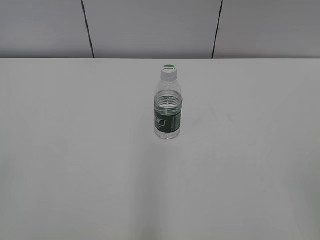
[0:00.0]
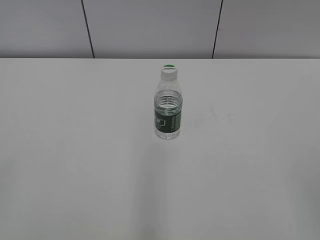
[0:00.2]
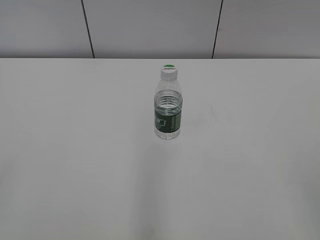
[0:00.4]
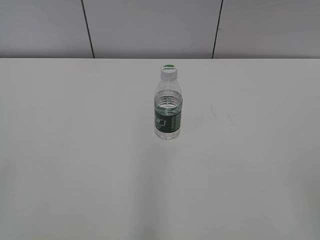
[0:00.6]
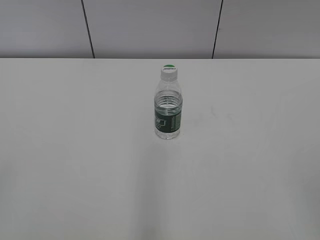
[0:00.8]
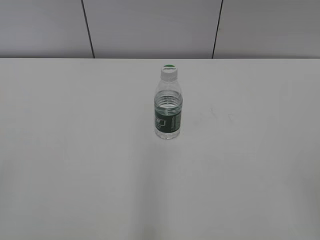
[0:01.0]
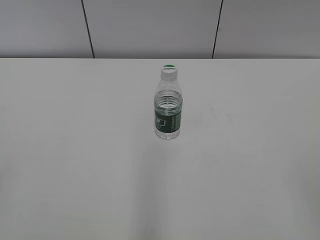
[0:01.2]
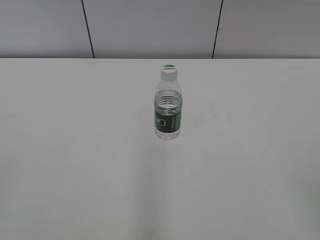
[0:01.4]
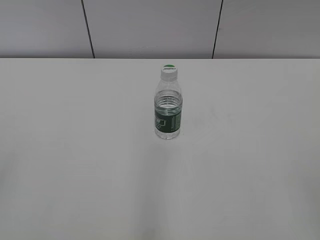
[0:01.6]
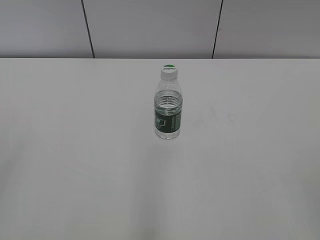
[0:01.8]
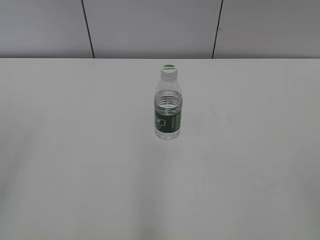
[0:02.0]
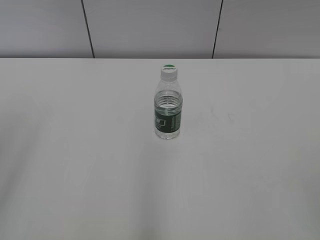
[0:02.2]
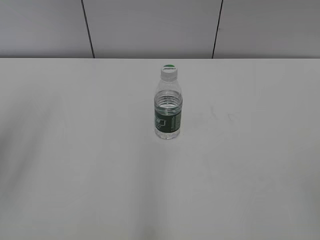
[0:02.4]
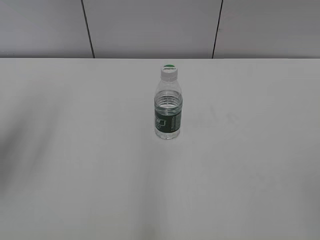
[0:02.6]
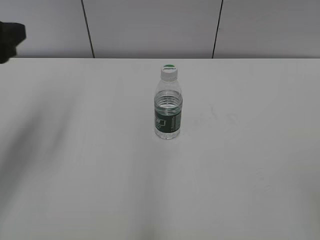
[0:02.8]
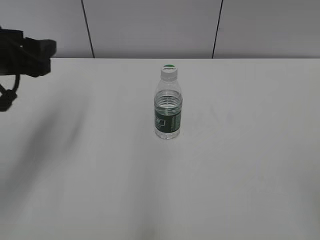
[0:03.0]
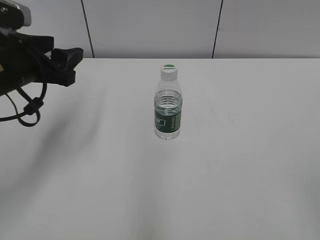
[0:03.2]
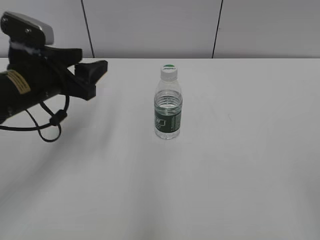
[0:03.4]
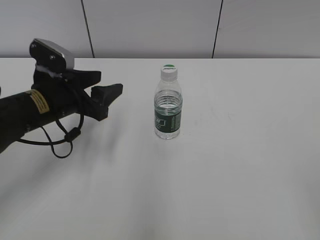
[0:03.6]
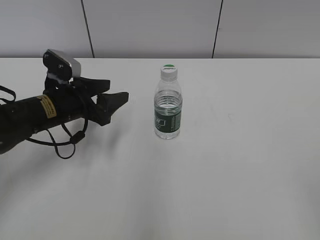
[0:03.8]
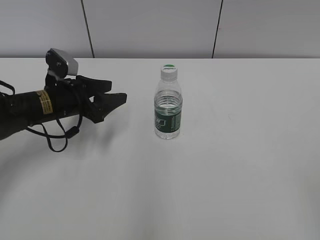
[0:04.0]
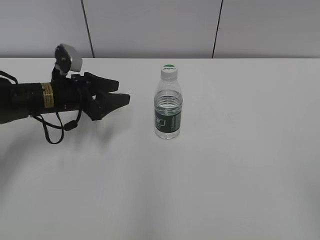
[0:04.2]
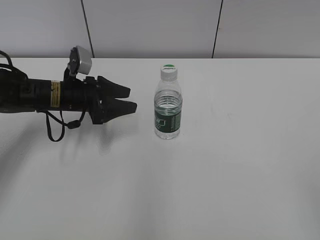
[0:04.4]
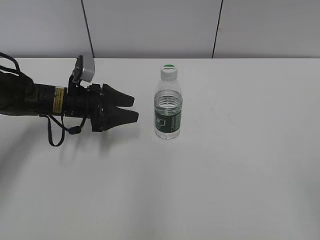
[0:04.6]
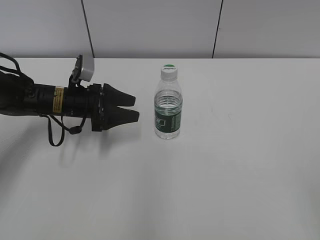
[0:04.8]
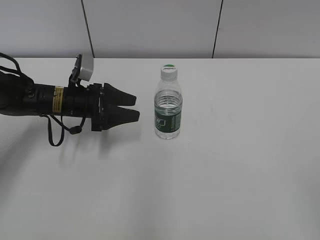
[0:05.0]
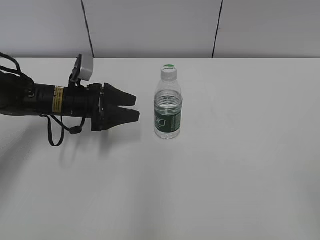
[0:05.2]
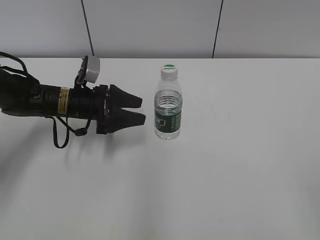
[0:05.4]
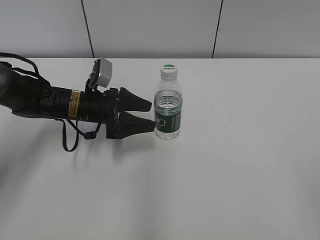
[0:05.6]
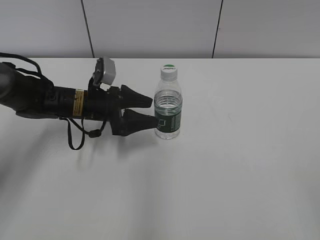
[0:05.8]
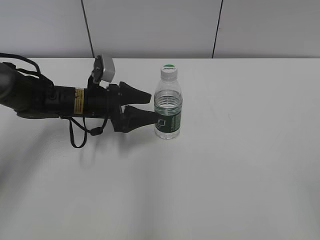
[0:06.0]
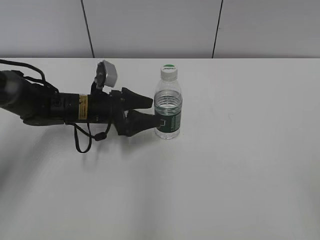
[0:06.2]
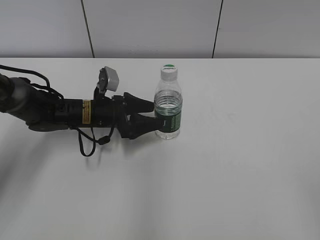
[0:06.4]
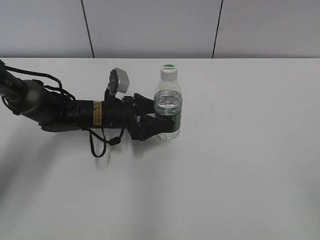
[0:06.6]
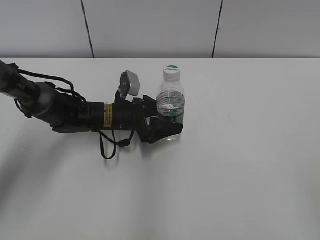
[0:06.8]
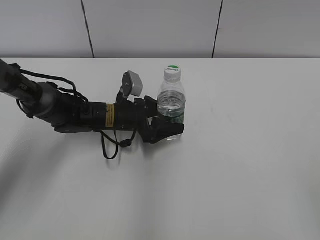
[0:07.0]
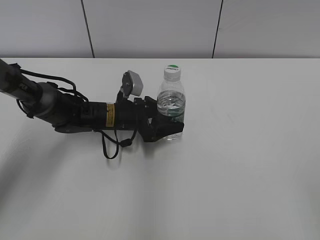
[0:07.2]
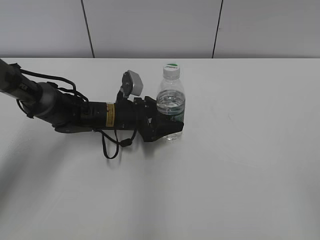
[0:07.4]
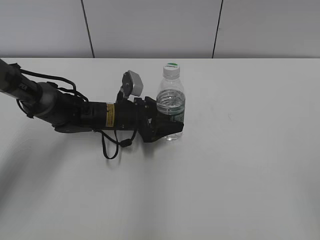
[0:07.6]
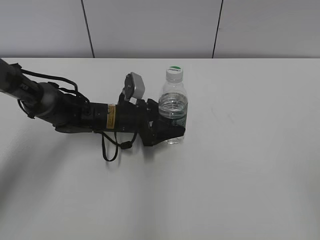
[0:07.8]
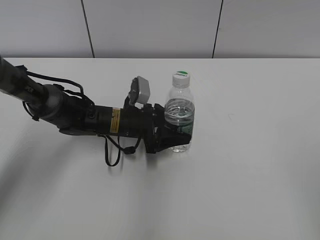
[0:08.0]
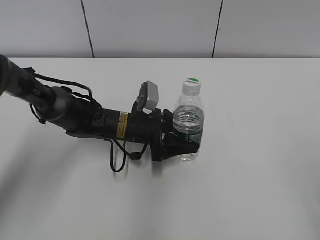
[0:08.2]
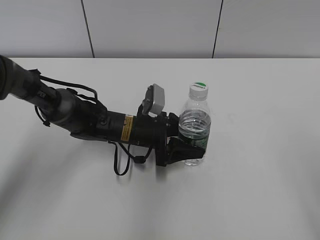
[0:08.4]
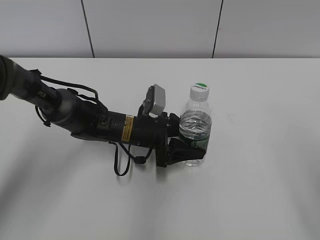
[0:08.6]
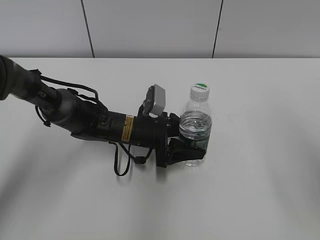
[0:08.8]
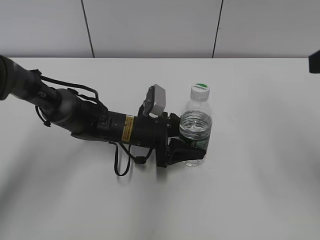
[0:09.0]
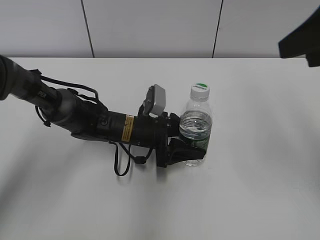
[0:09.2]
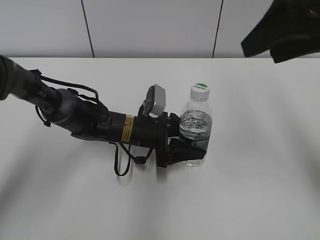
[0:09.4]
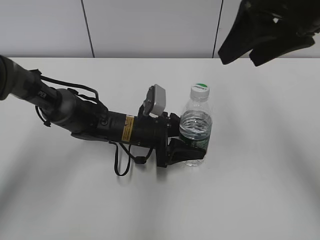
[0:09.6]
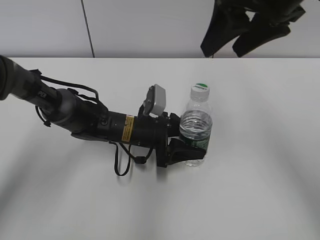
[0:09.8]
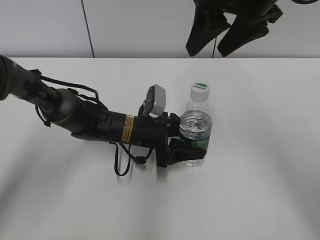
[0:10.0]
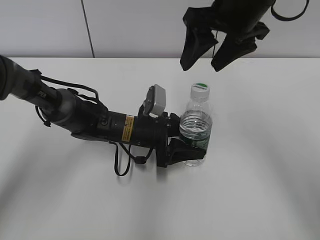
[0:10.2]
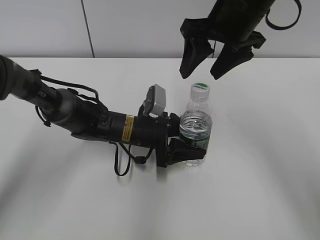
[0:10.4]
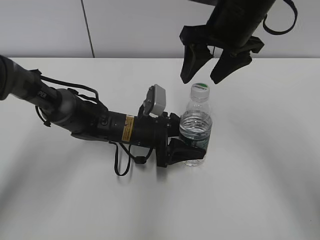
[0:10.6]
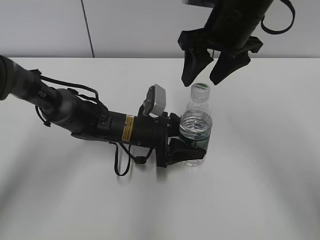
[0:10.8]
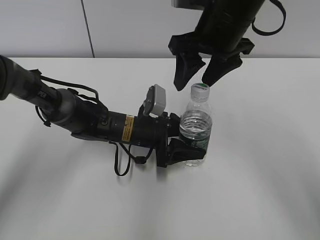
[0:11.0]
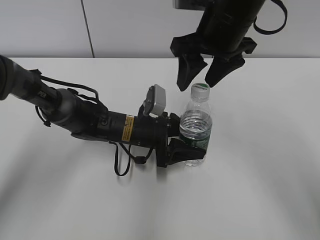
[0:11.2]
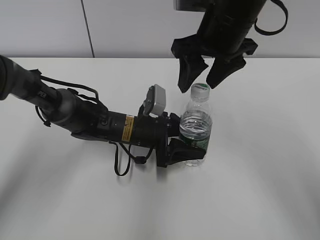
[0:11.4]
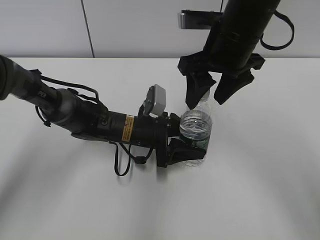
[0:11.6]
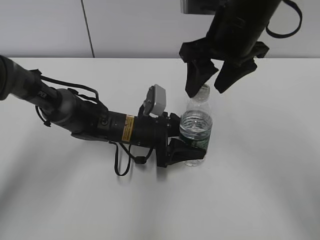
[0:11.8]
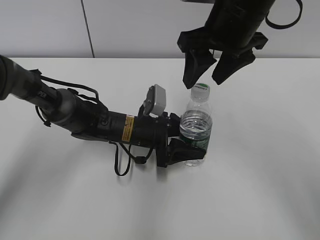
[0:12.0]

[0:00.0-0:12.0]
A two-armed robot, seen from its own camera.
Step, 0:00.0 to 0:06.6: Grab the C'estbon with the left hand.
Step, 0:06.8 to 0:08.8: Move the C'estbon to the right with the left hand.
0:01.6 to 0:03.0: The left gripper moves forward, some 25 cm.
0:03.0 to 0:04.4: The left gripper travels downward and forward by roughly 20 cm.
0:04.4 to 0:06.0: The left gripper opens up.
0:06.0 to 0:07.6: The left gripper shifts about 5 cm to the right, and closes up.
0:07.6 to 0:09.0: The left gripper shifts by roughly 5 cm. Meanwhile the right gripper heads forward, covering approximately 20 cm.
0:09.0 to 0:10.4: The right gripper goes about 20 cm forward and to the left.
0:10.4 to 0:12.0: There are only small adjustments of the grippers.

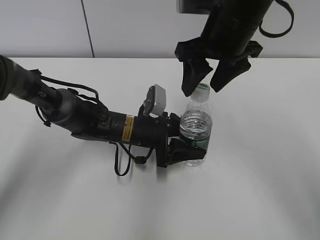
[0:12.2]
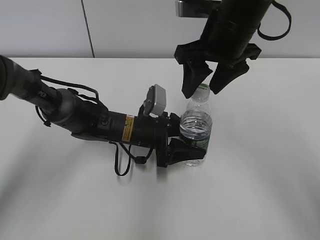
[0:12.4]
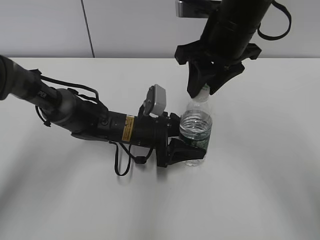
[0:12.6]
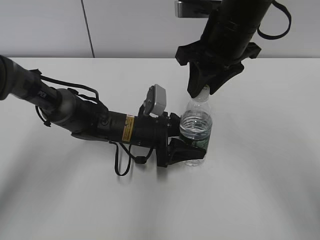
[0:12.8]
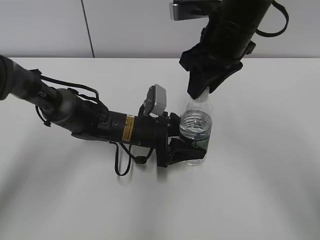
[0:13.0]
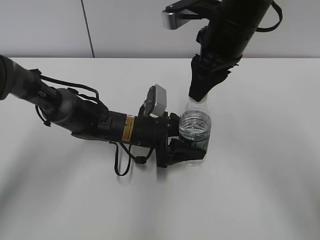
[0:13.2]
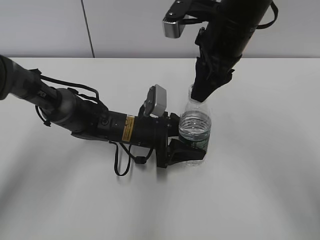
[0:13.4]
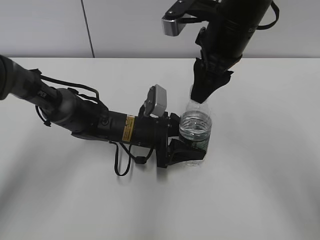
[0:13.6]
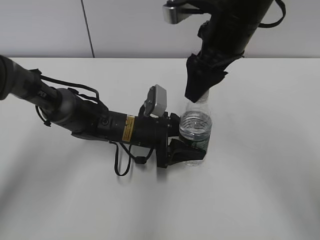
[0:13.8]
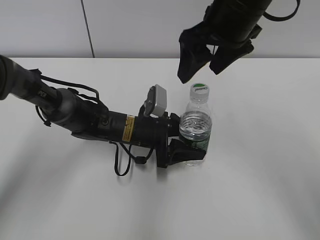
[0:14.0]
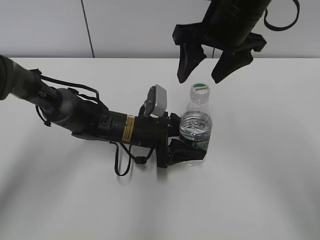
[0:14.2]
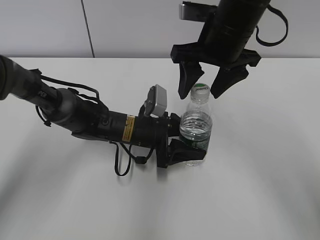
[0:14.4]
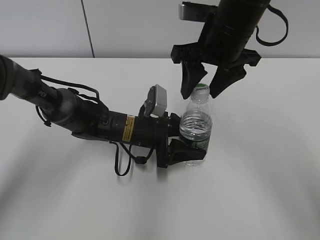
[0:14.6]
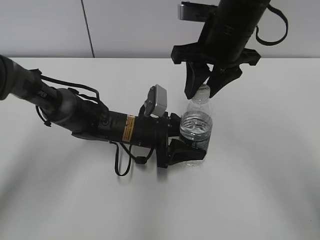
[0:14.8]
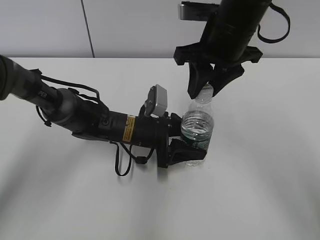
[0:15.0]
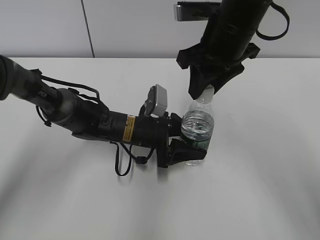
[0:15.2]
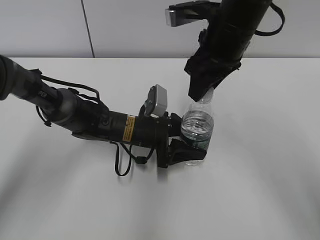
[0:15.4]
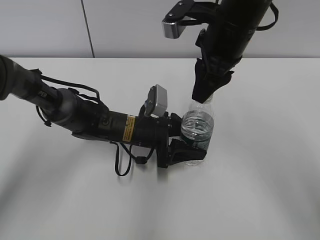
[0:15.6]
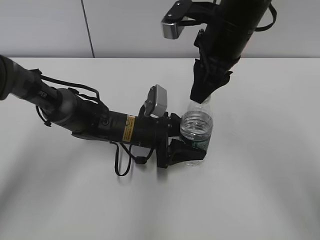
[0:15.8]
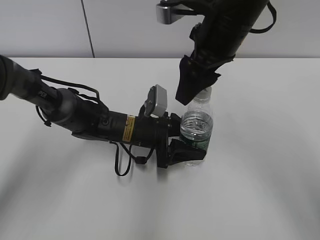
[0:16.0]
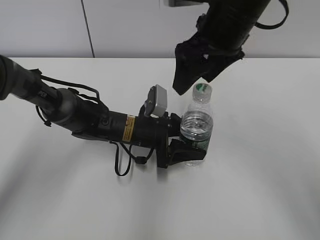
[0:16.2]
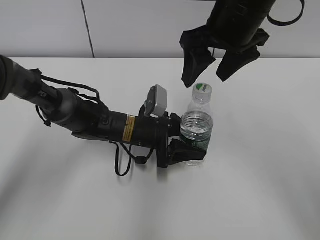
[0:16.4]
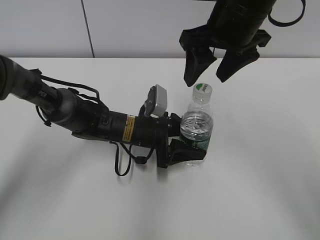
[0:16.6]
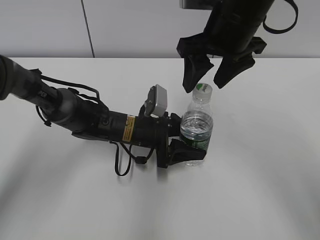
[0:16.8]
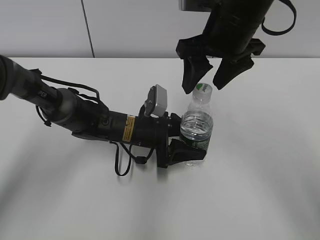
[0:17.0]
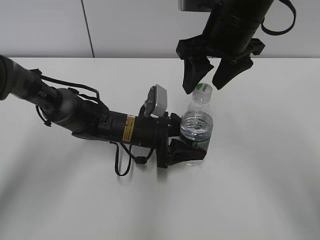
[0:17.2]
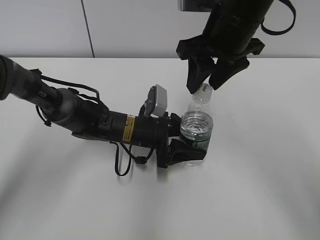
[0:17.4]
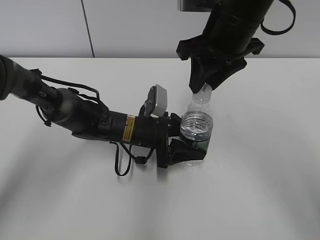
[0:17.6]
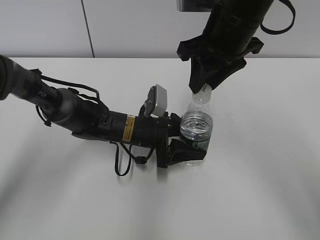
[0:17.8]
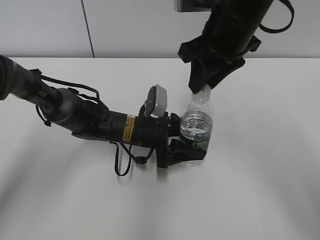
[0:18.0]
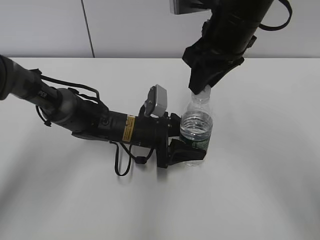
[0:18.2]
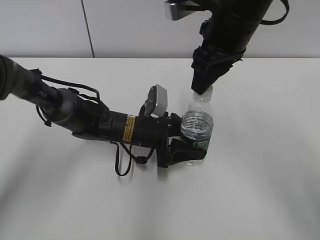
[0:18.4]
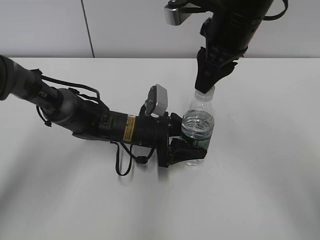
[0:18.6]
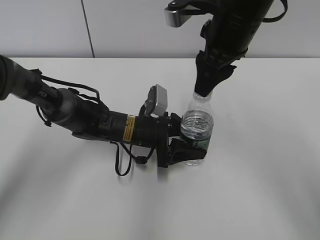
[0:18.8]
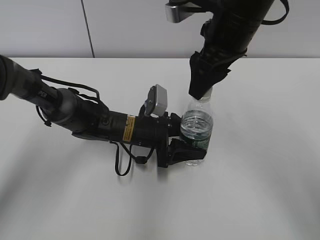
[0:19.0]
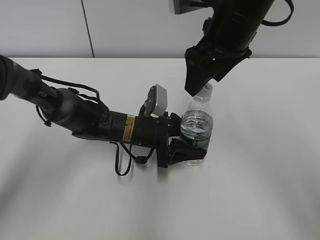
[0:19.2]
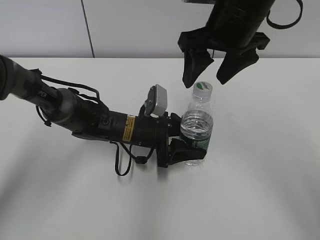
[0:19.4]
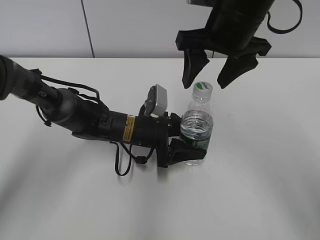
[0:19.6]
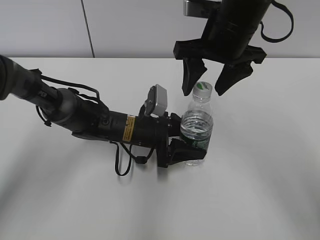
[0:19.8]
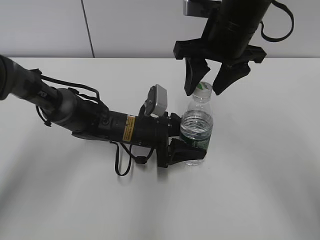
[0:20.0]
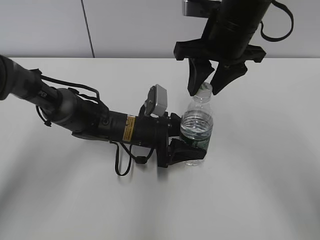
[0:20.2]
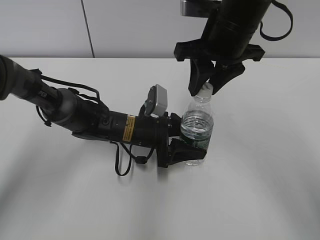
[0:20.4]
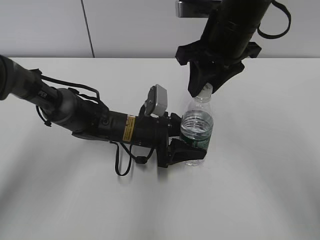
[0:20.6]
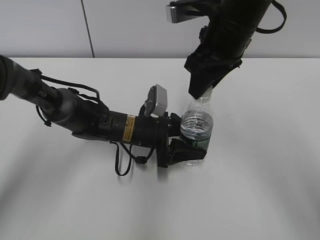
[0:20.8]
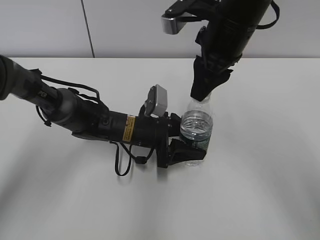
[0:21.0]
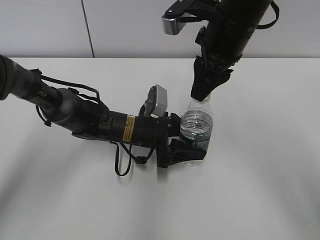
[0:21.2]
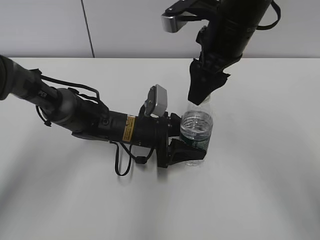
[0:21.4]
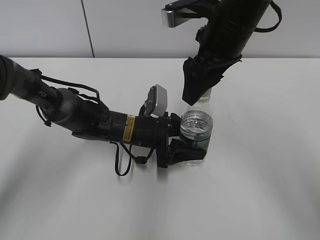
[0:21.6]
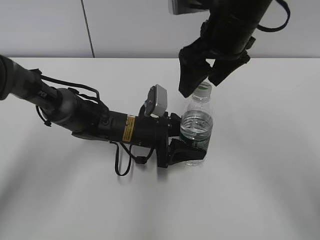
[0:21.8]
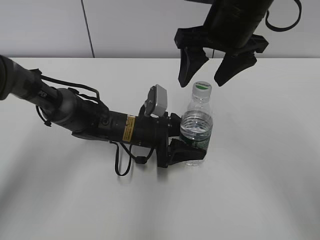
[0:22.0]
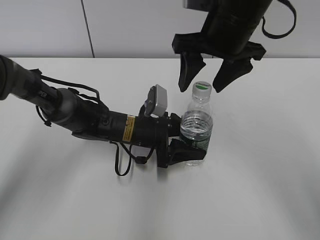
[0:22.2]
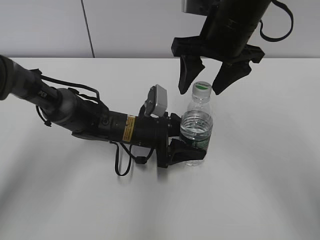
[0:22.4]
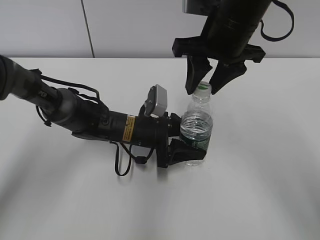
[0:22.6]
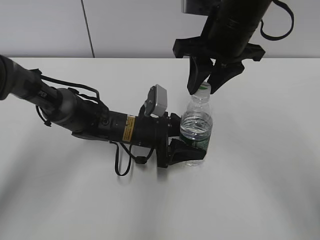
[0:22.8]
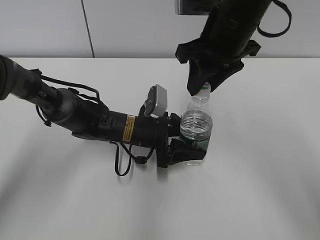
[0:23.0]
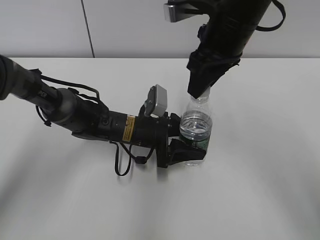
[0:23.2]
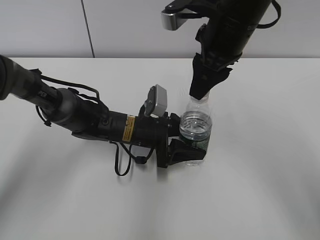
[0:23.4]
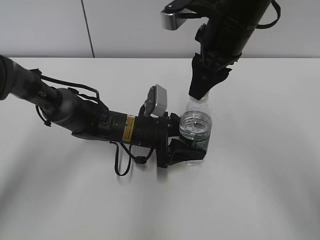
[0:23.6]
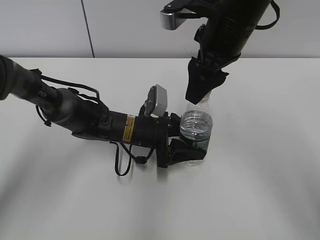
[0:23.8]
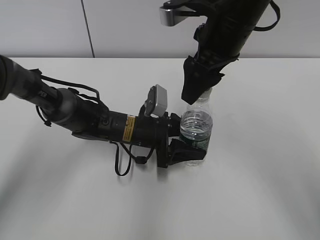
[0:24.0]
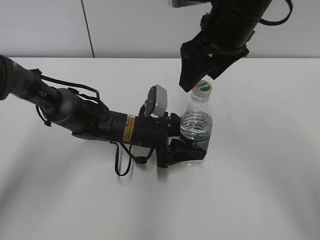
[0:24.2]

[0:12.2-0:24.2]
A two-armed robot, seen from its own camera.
0:12.2 to 0:13.8: The right gripper closes and opens again.
0:13.8 to 0:15.2: The right gripper closes.
0:15.2 to 0:16.6: The right gripper opens its fingers.
0:16.6 to 0:18.2: The right gripper closes up.
0:18.2 to 0:19.8: The right gripper opens.
0:19.8 to 0:21.2: The right gripper closes its fingers.
0:21.2 to 0:22.6: The right gripper opens, then closes again.
0:22.6 to 0:24.2: The right gripper opens its fingers.
